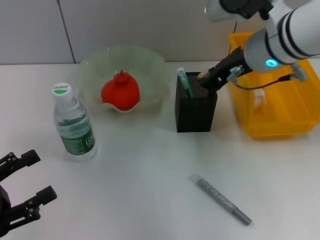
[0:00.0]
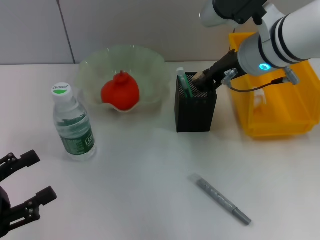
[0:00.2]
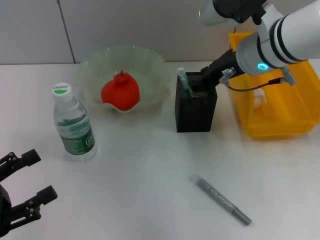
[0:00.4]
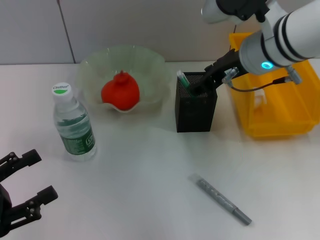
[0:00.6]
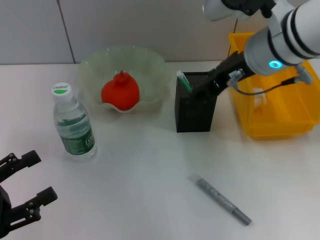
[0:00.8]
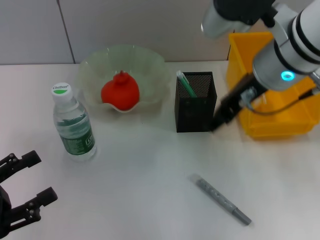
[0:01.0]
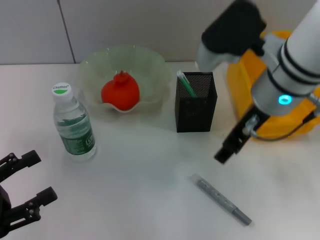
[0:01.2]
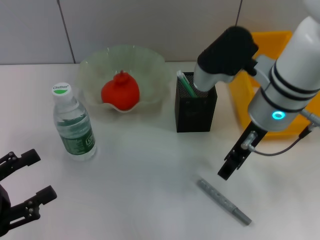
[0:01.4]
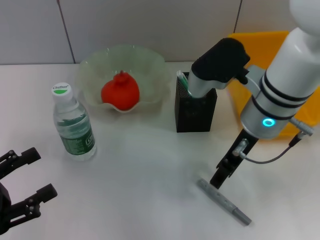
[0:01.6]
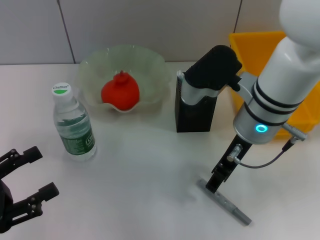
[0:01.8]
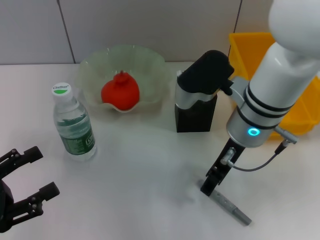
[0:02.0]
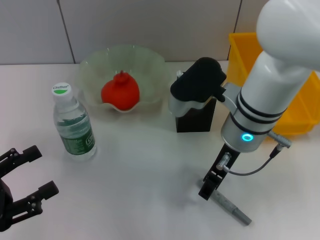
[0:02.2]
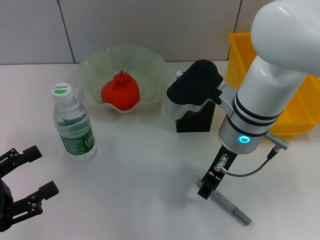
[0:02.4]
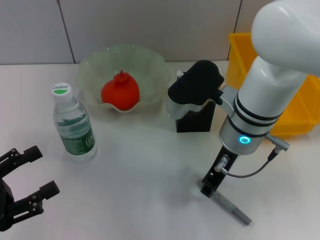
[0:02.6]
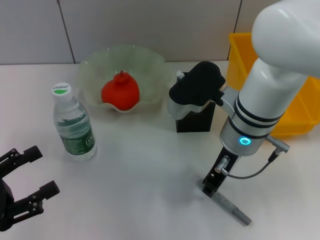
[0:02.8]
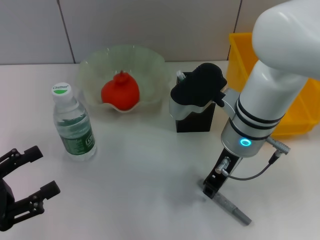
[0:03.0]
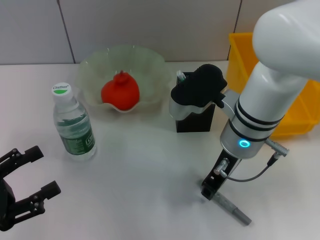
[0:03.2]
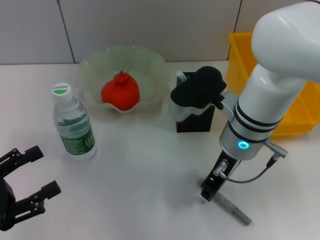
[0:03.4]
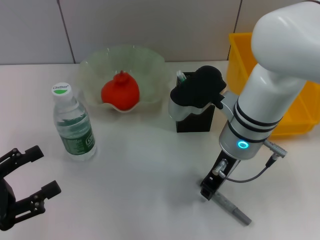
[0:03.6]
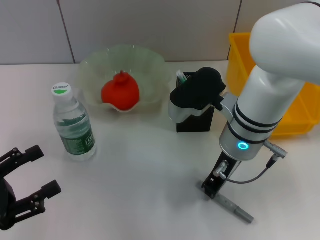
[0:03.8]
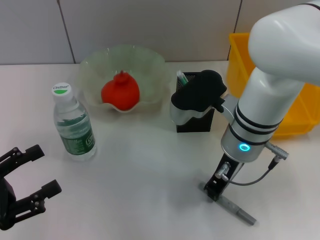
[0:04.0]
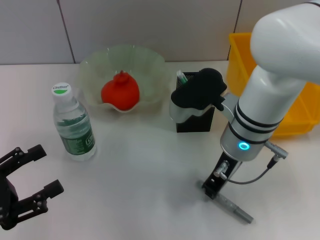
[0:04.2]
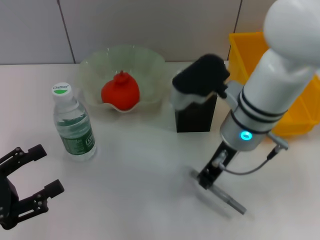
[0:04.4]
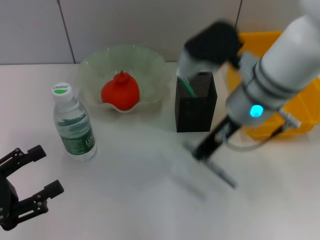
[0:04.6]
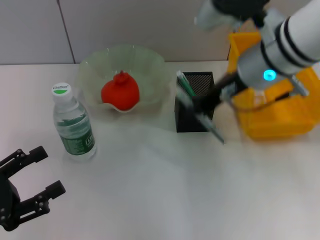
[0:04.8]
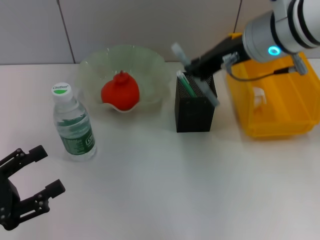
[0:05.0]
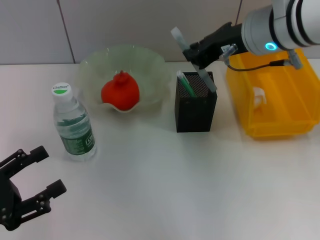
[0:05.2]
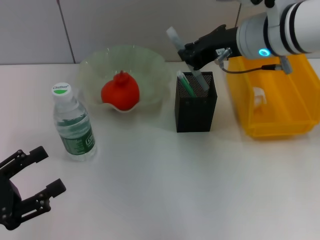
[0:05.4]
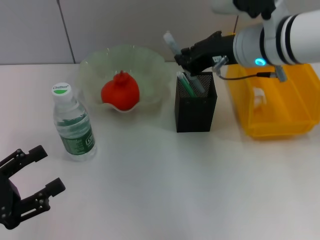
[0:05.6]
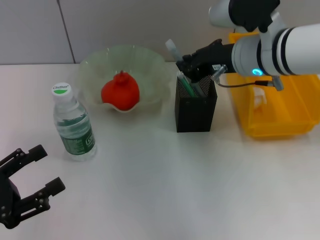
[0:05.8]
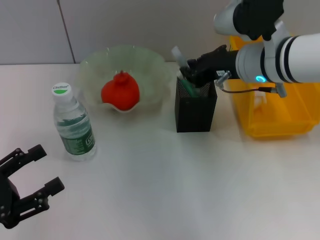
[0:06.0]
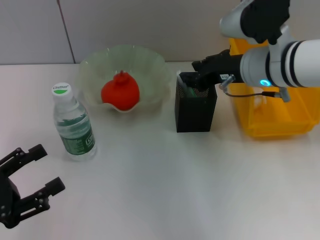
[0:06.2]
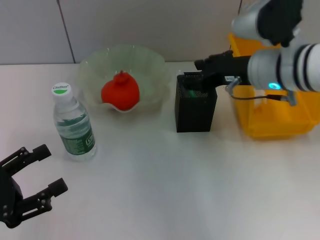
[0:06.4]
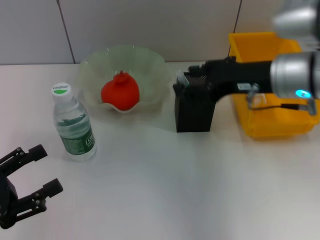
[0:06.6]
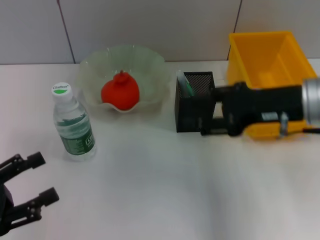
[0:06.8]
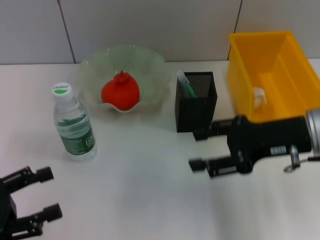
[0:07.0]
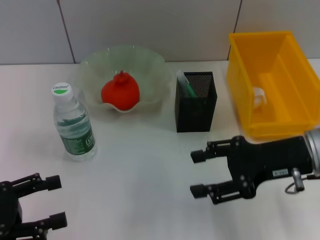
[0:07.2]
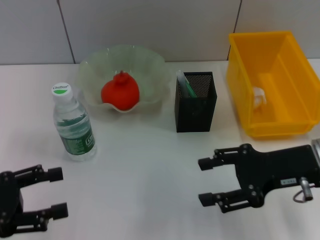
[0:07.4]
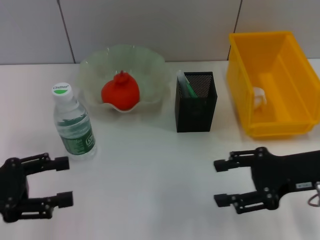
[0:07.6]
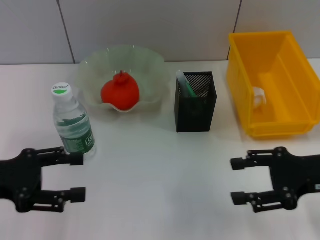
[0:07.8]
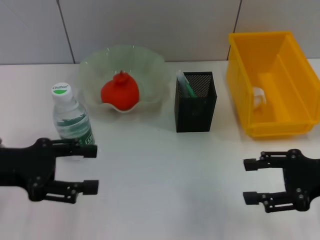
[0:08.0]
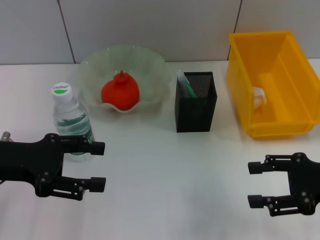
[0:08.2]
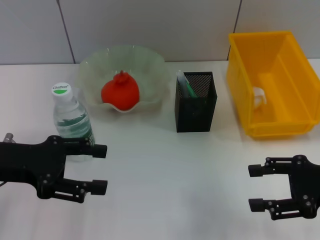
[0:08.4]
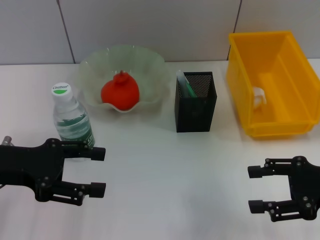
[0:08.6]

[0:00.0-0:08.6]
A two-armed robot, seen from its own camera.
Step, 0:00.6 to 0:04.0: Grab the gray glue with the right hand.
Step, 0:04.2 to 0:06.0: Place the gray glue into the pen holder with the right hand.
0:00.0 to 0:01.4: The right gripper moves approximately 5 cm, and opens.
0:01.4 to 0:02.8: The right gripper moves about 5 cm, and closes.
0:02.8 to 0:04.4: The right gripper closes its fingers.
0:04.4 to 0:05.8: The right gripper goes some 5 cm forward, and goes upward and returns, about 10 cm each way.
0:05.8 to 0:07.2: The right gripper shifts about 15 cm backward and to the right, and opens its fingers.
0:07.2 to 0:08.6: The left gripper moves forward, upward and to the right, some 10 cm. Meanwhile the right gripper goes approximately 10 cm to the right.
